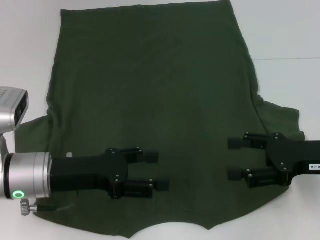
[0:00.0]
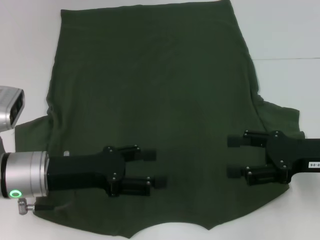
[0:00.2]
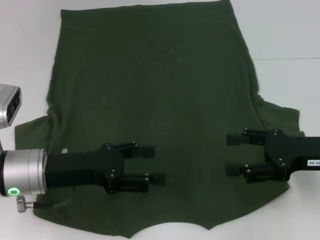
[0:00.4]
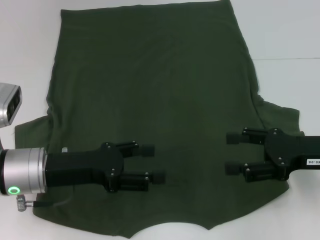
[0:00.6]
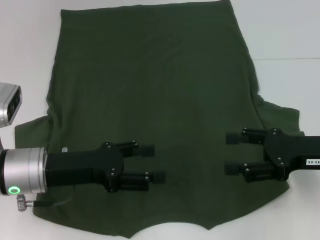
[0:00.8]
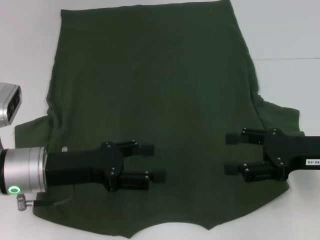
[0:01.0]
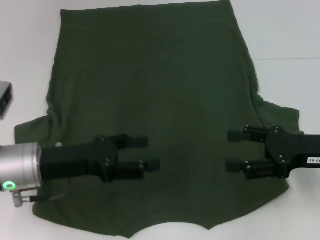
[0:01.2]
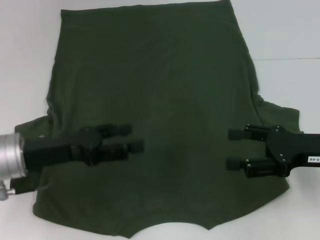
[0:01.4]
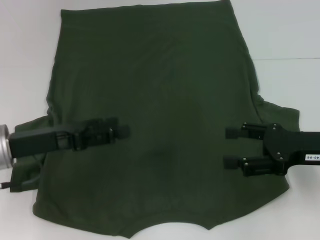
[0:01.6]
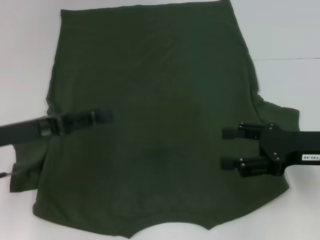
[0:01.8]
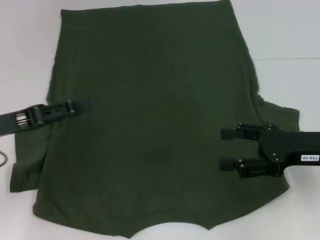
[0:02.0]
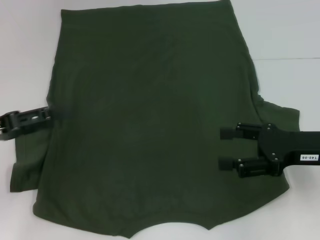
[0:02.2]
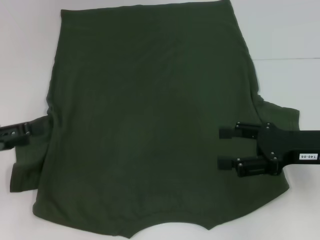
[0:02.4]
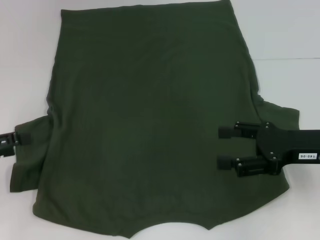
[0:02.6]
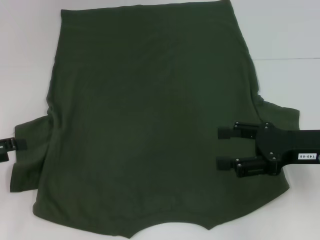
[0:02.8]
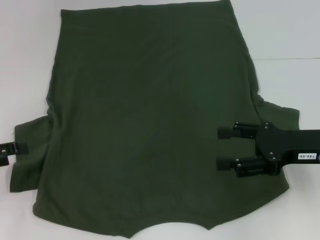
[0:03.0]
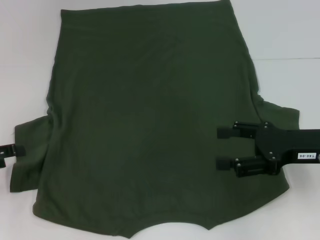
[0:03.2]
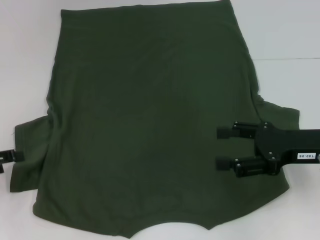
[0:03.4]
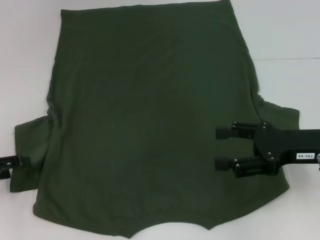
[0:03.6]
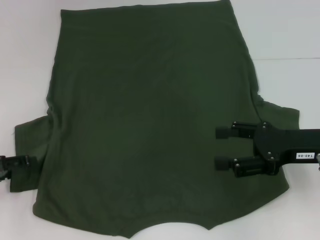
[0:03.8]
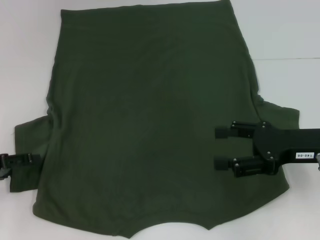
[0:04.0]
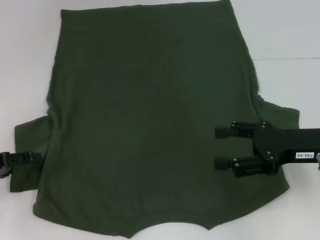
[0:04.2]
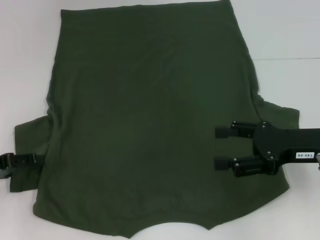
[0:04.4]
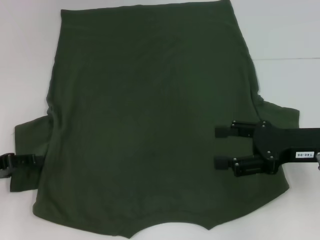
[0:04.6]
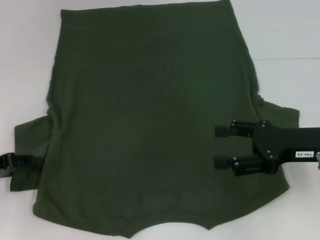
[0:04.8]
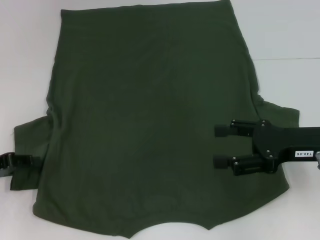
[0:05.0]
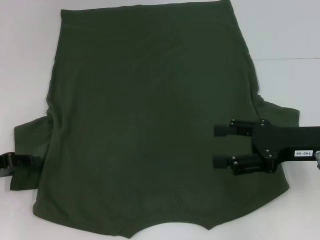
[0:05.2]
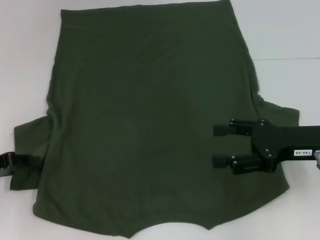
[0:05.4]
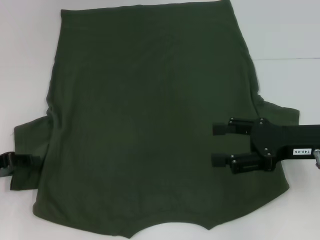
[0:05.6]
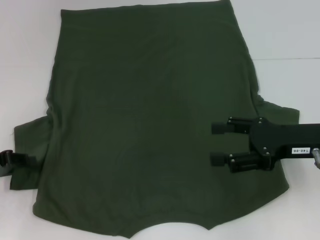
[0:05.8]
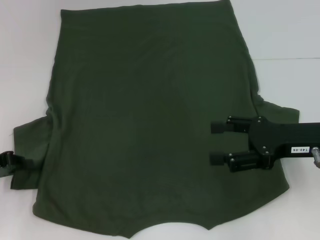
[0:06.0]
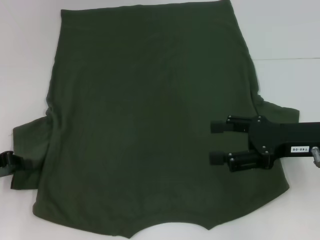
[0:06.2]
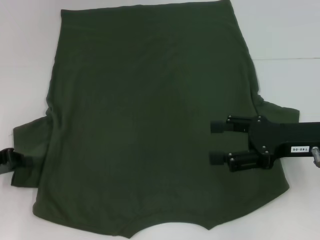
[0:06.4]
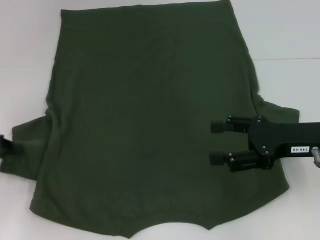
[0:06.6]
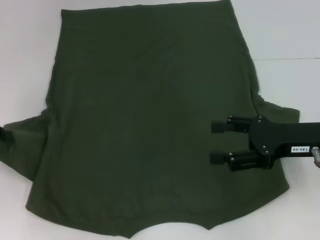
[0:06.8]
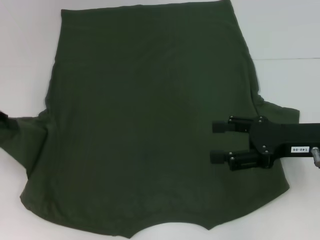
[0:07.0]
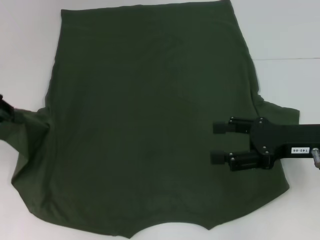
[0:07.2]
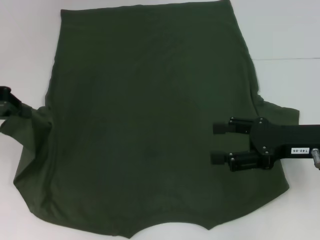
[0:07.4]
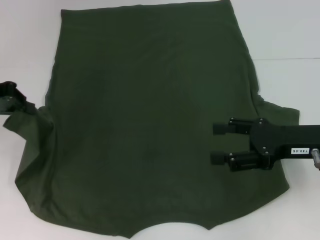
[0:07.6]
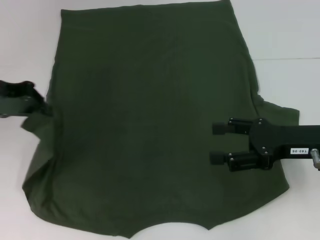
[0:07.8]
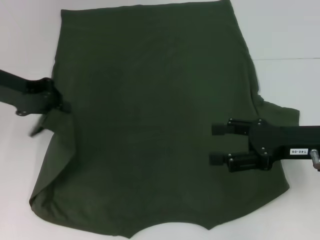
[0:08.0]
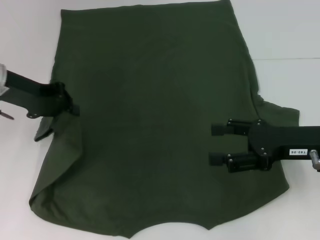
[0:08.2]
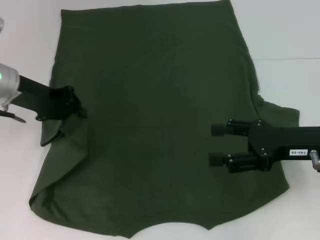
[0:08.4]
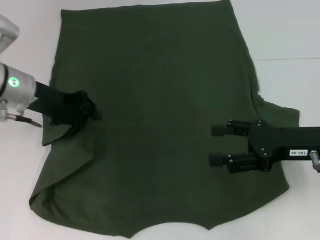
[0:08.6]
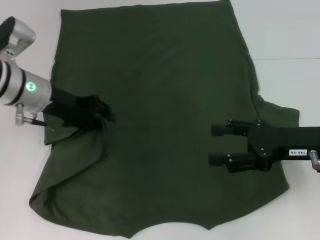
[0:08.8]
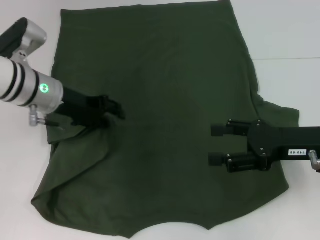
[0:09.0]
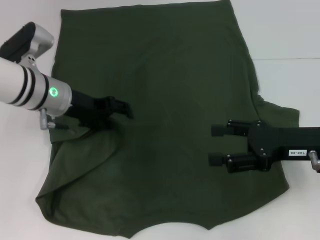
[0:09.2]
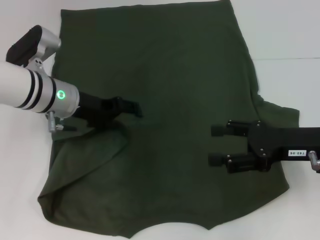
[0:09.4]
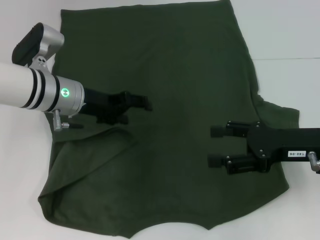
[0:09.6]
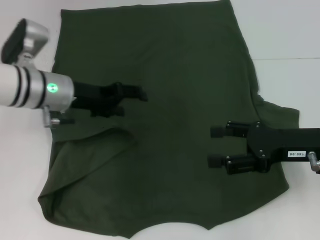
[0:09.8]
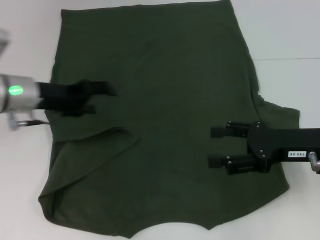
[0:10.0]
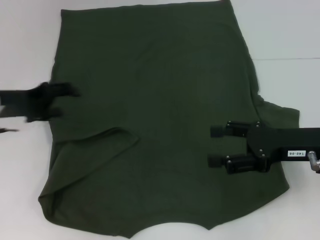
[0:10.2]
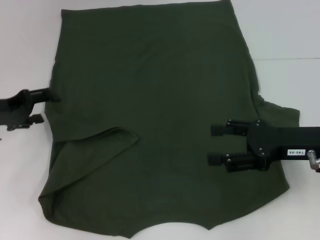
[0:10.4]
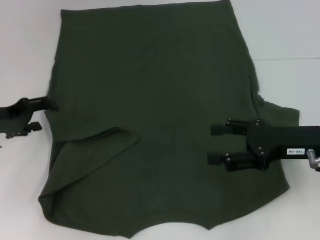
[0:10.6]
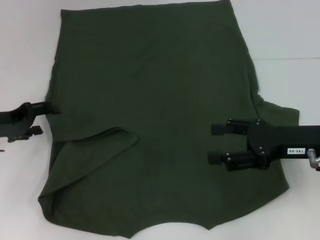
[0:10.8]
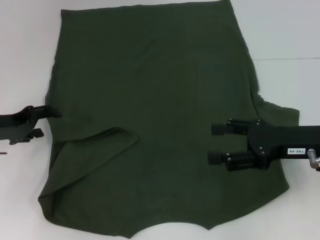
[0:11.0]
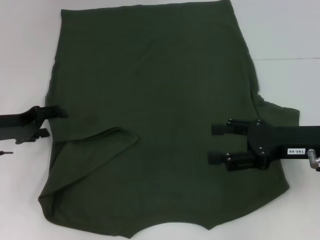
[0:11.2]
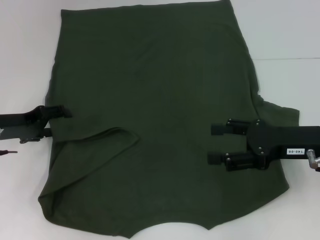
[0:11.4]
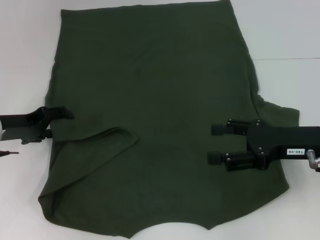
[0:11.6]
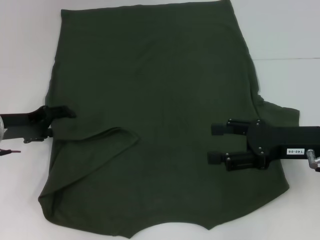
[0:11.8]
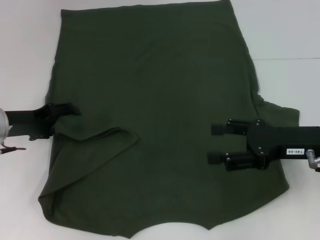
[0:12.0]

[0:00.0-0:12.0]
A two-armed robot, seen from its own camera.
0:00.0 to 0:01.6: The left gripper moves some 5 cm.
0:01.6 to 0:03.0: The left gripper is displaced to the left by some 10 cm.
0:03.0 to 0:04.4: The grippers make only small movements.
0:04.4 to 0:06.0: The left gripper closes its fingers.
0:06.0 to 0:07.6: The left gripper moves upward and forward, about 15 cm.
0:07.6 to 0:09.0: The left gripper heads to the right and downward, covering some 15 cm, and opens.
0:09.0 to 0:10.4: The left gripper is displaced to the left by about 10 cm, and opens.
0:10.4 to 0:12.0: There are only small adjustments of the grippers.

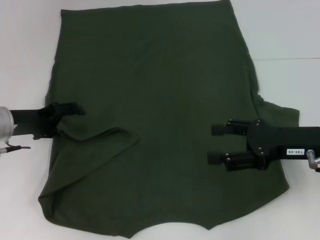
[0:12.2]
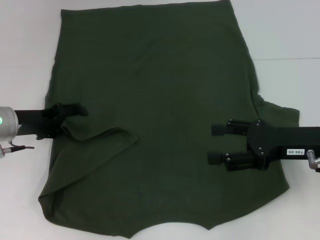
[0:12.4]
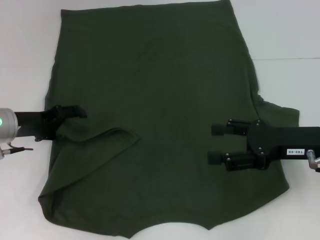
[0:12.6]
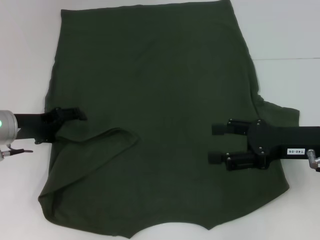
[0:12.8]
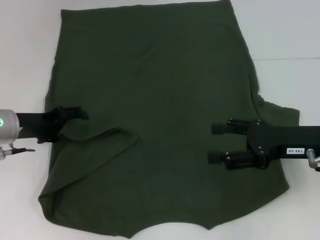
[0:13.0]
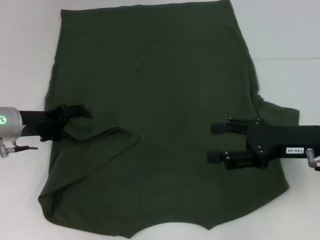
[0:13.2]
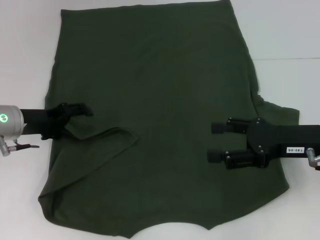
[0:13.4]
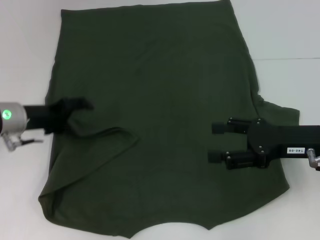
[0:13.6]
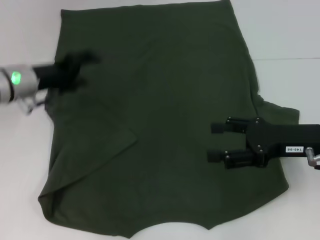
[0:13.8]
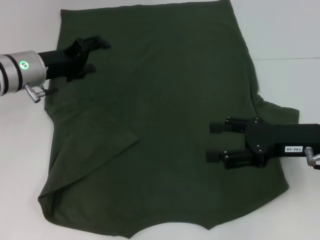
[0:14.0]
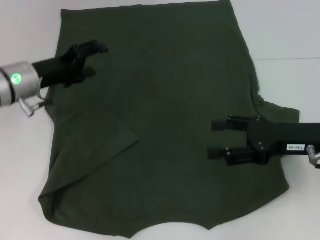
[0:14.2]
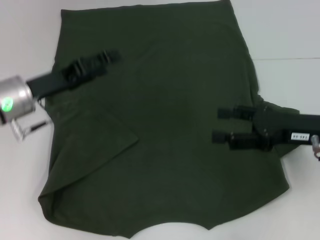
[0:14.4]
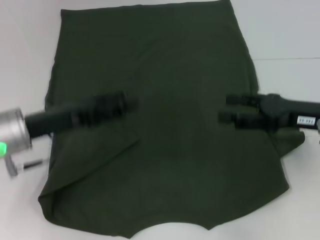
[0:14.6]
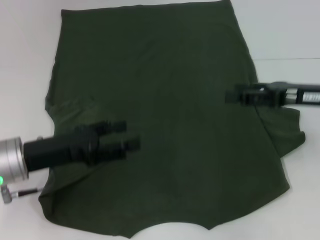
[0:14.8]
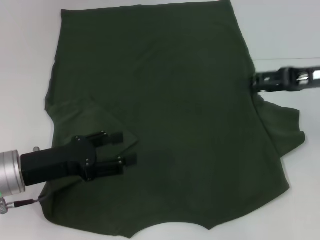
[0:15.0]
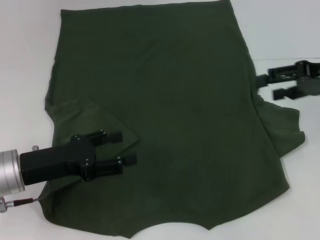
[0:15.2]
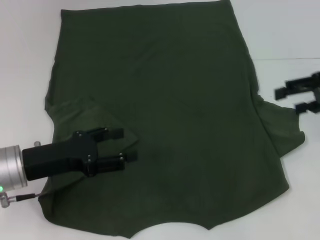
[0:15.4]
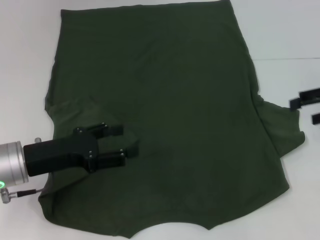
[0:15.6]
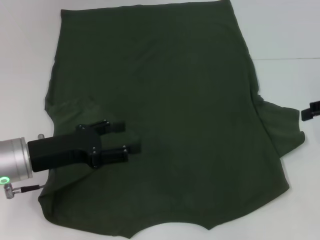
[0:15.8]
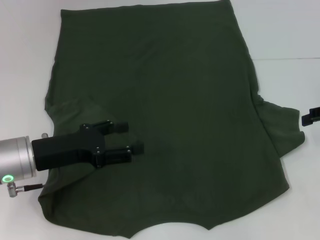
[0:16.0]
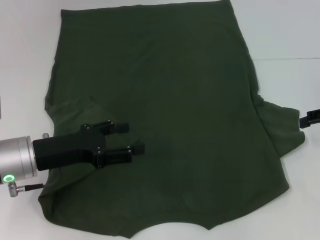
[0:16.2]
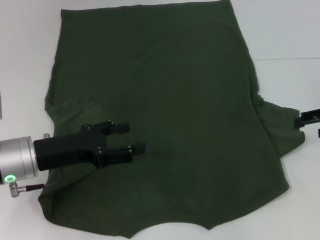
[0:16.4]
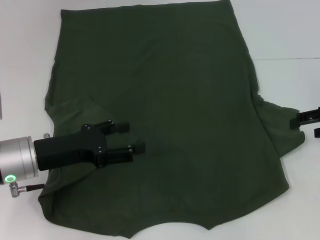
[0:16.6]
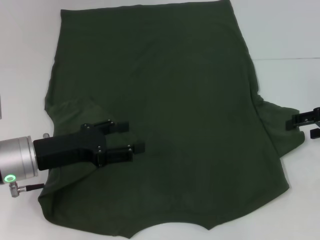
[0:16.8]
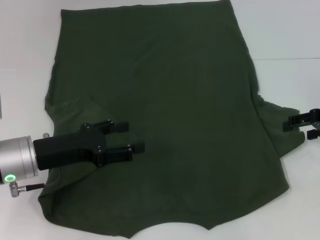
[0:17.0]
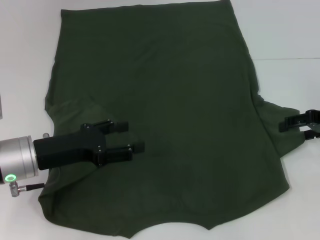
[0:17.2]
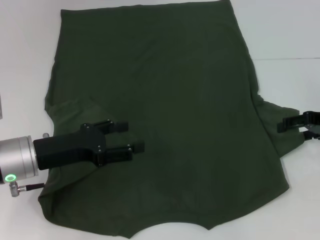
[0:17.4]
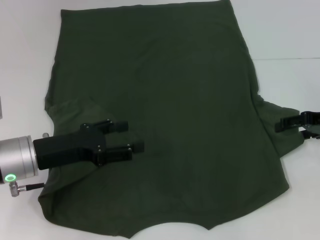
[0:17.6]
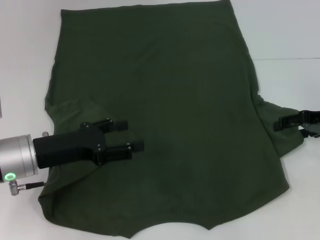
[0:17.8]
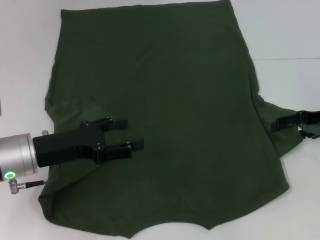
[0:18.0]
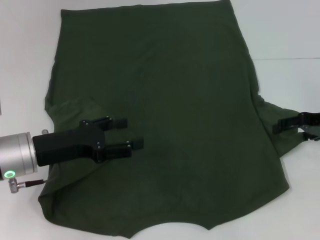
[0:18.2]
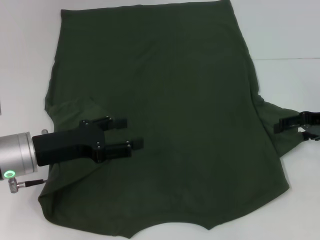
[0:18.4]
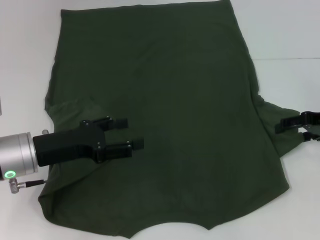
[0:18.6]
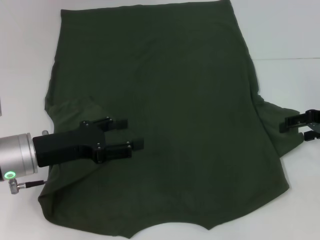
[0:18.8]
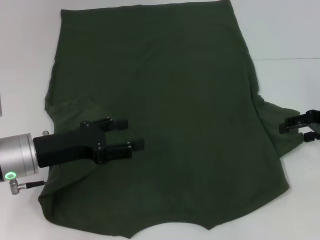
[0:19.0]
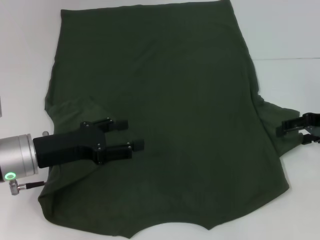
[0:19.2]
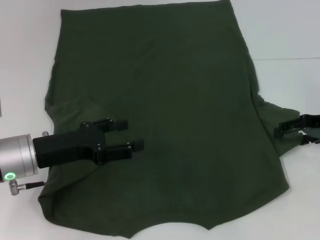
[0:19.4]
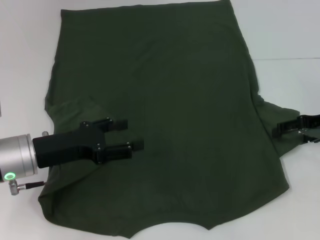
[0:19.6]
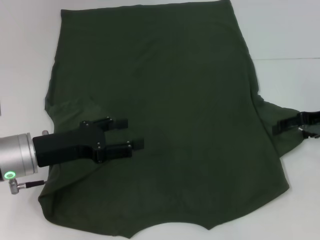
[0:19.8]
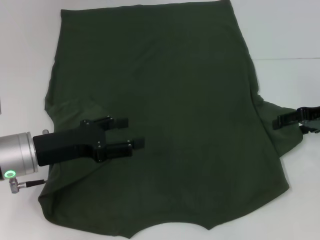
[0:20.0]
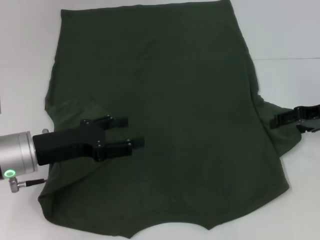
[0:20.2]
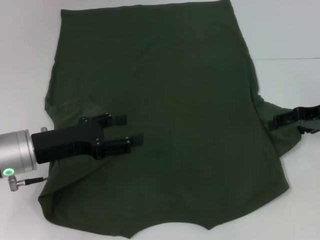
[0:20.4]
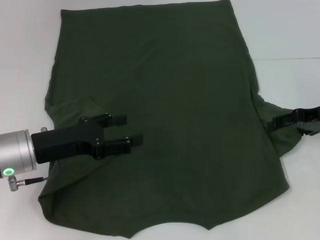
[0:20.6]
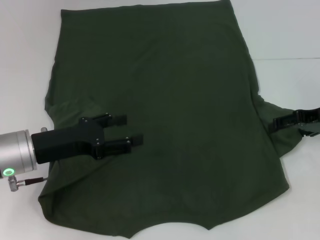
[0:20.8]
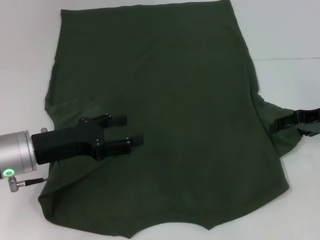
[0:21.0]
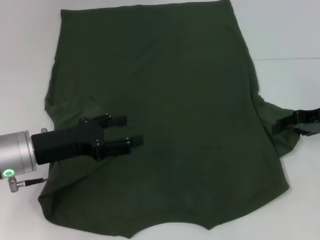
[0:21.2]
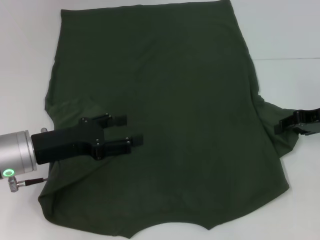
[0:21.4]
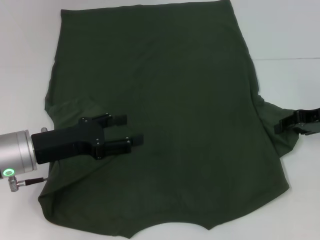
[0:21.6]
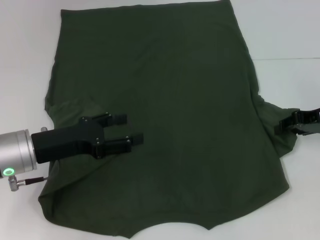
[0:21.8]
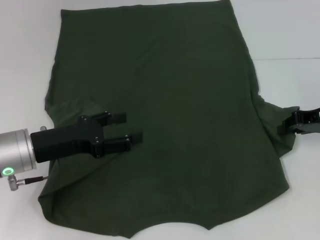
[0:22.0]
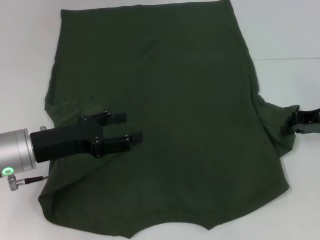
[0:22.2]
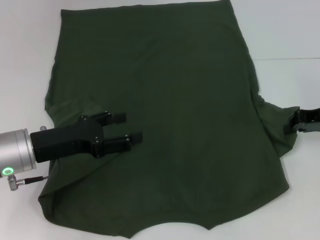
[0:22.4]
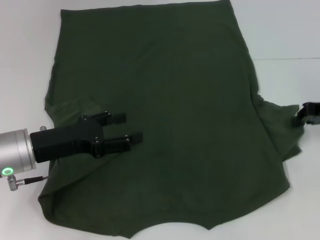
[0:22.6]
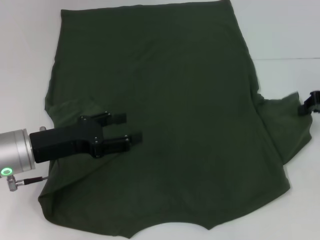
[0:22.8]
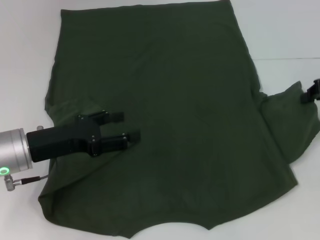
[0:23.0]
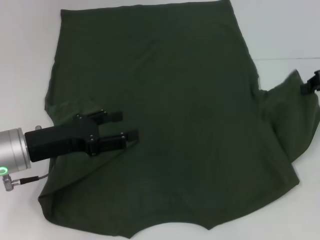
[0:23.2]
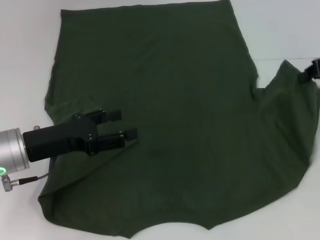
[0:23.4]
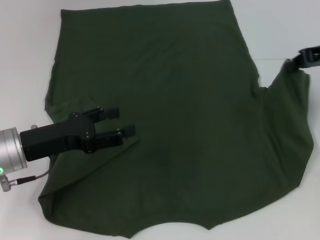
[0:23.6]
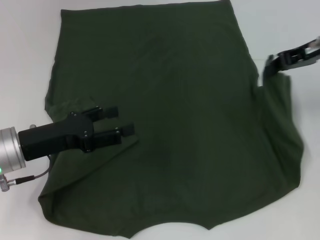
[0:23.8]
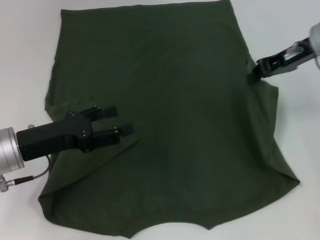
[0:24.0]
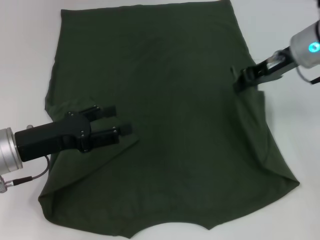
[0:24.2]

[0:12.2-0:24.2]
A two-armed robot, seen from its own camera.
0:12.2 to 0:13.8: The left gripper changes place by approximately 5 cm.
0:13.8 to 0:15.2: The left gripper is displaced backward by some 15 cm. Meanwhile the right gripper is displaced upward, forward and to the right by approximately 15 cm.
0:15.2 to 0:16.6: The right gripper travels downward by some 5 cm.
0:16.6 to 0:18.2: The grippers stay close to where they were, moving slightly.
0:19.8 to 0:21.2: The two grippers keep their place.
0:21.2 to 0:22.6: The right gripper closes up.
0:22.6 to 0:24.2: The right gripper goes approximately 15 cm to the left, upward and forward.
